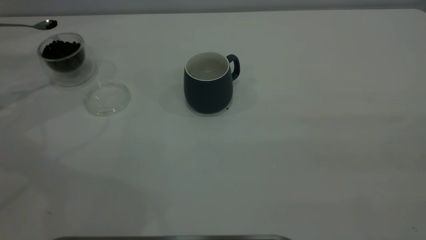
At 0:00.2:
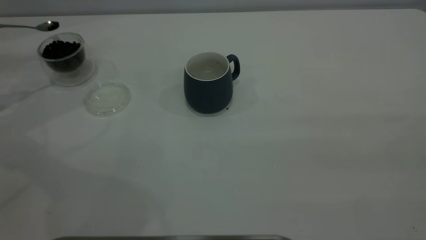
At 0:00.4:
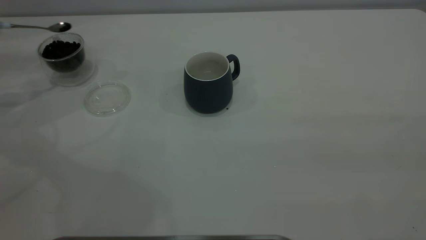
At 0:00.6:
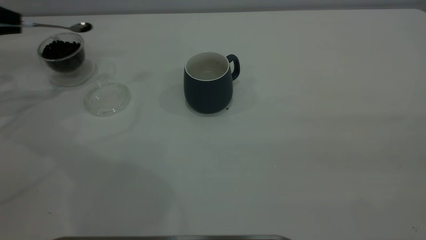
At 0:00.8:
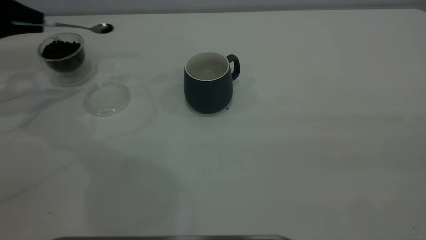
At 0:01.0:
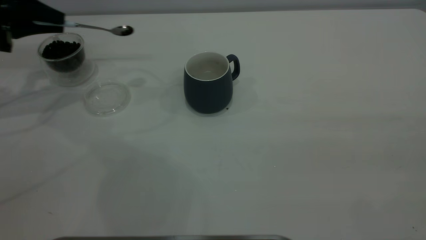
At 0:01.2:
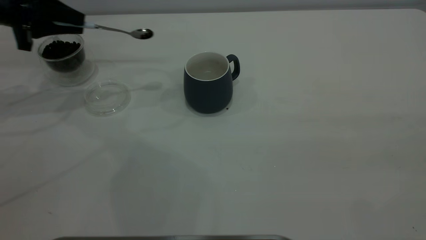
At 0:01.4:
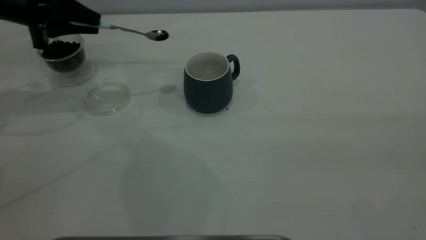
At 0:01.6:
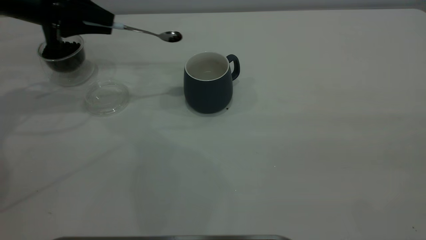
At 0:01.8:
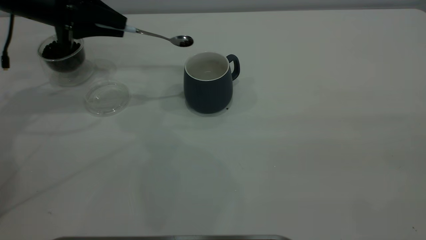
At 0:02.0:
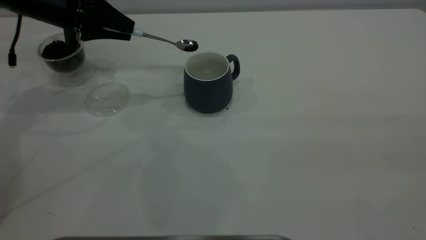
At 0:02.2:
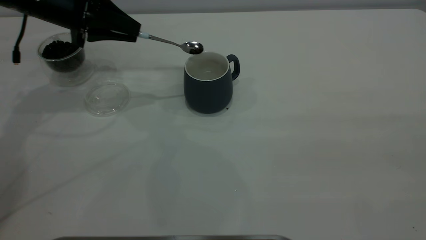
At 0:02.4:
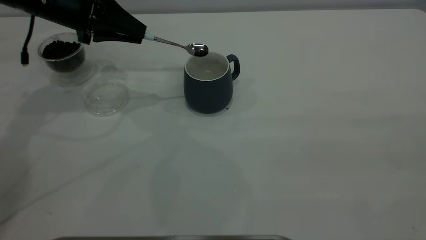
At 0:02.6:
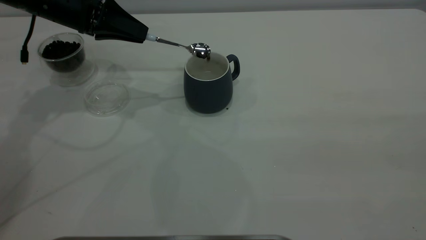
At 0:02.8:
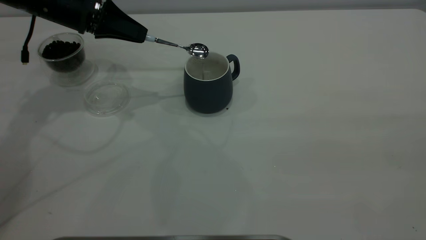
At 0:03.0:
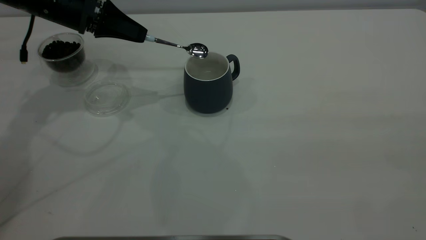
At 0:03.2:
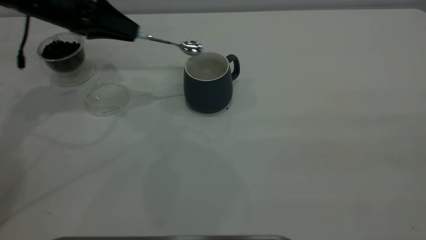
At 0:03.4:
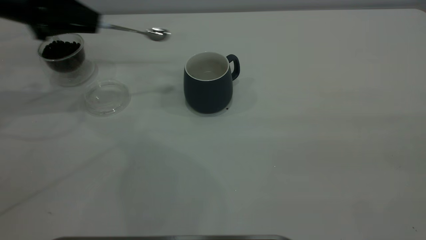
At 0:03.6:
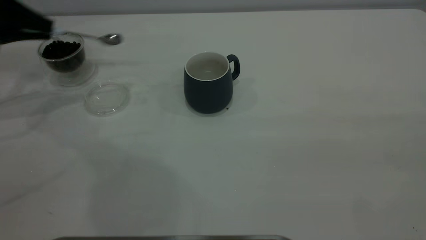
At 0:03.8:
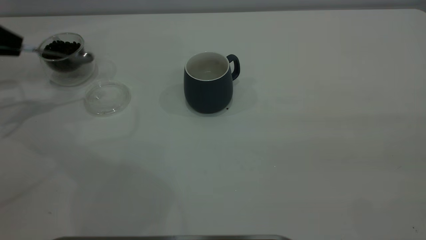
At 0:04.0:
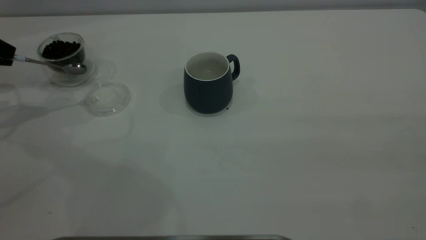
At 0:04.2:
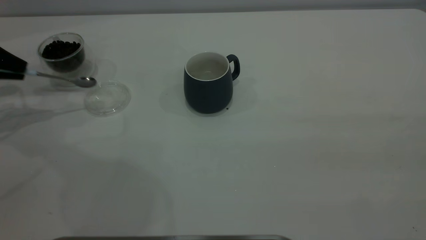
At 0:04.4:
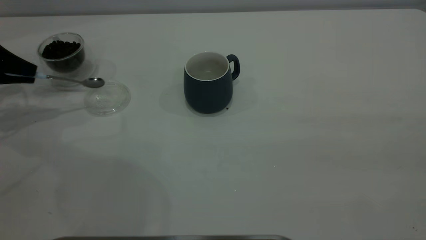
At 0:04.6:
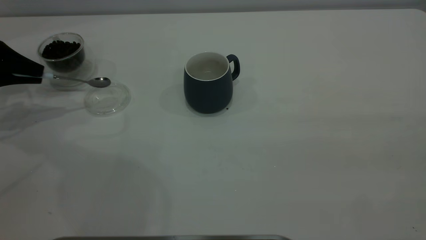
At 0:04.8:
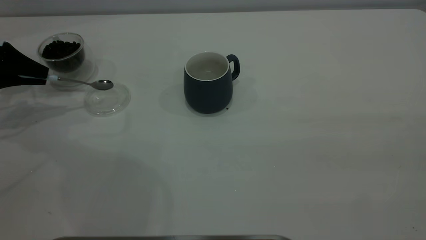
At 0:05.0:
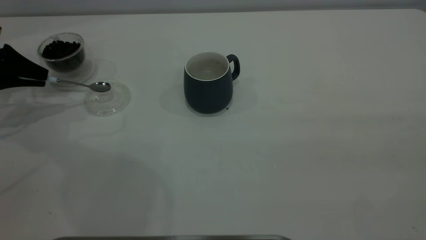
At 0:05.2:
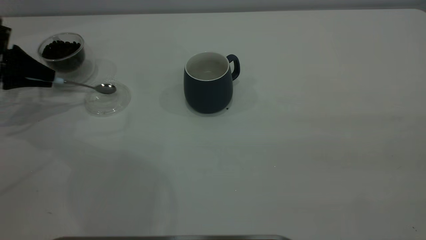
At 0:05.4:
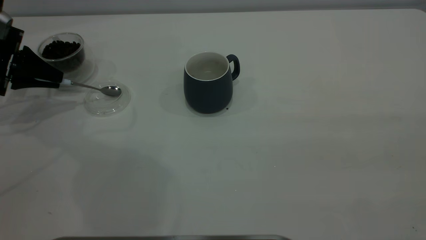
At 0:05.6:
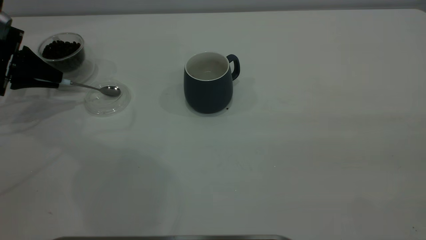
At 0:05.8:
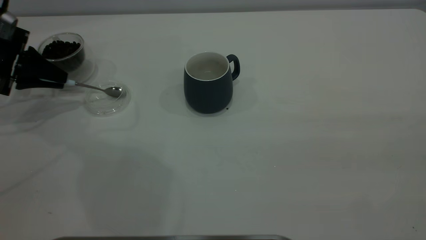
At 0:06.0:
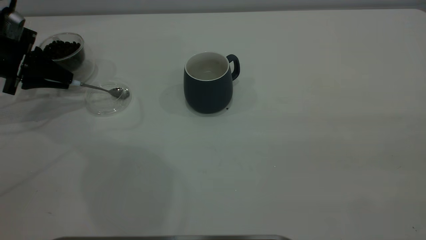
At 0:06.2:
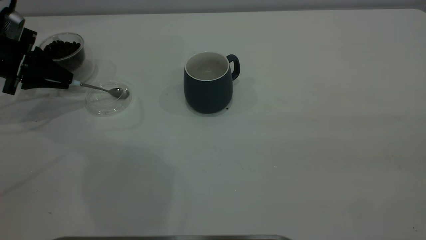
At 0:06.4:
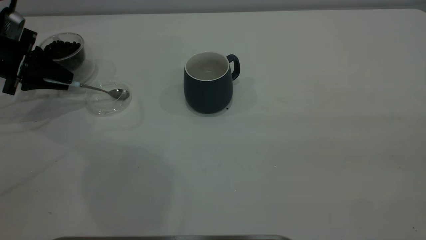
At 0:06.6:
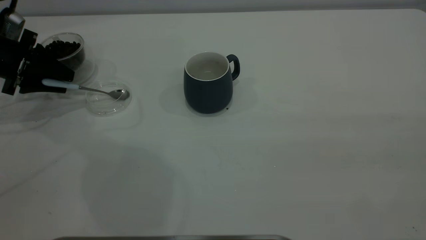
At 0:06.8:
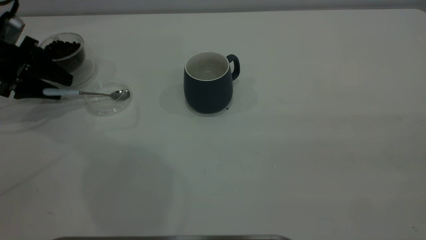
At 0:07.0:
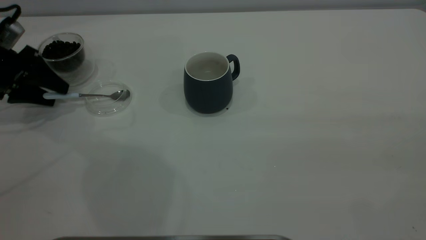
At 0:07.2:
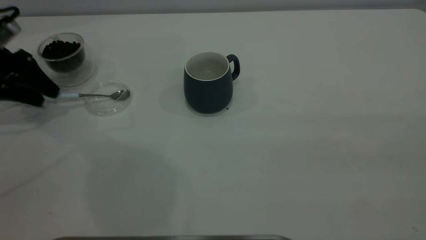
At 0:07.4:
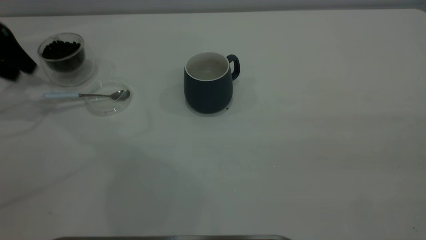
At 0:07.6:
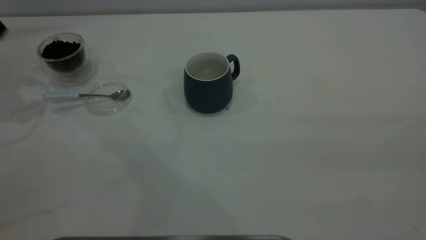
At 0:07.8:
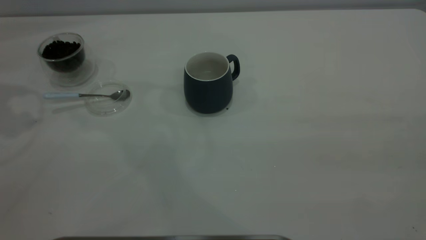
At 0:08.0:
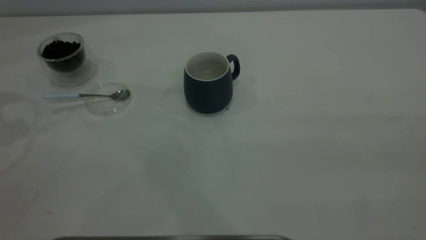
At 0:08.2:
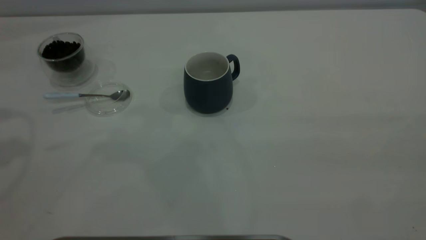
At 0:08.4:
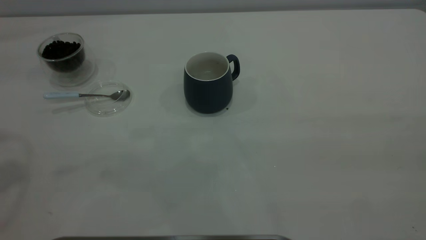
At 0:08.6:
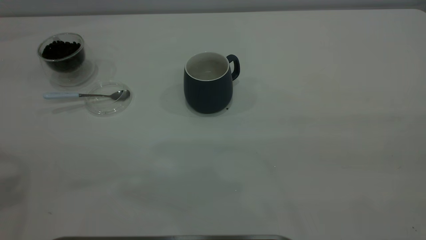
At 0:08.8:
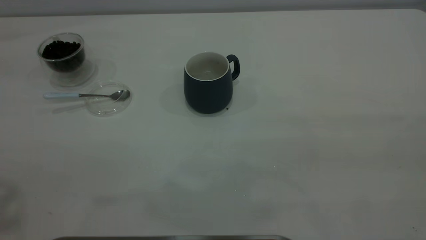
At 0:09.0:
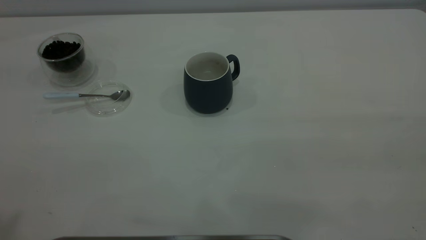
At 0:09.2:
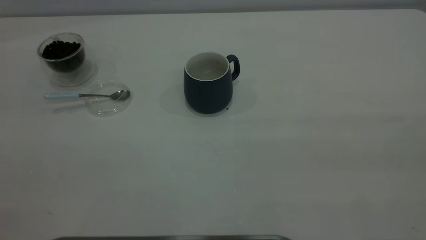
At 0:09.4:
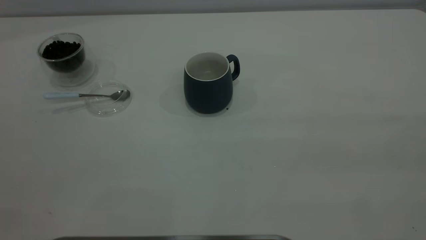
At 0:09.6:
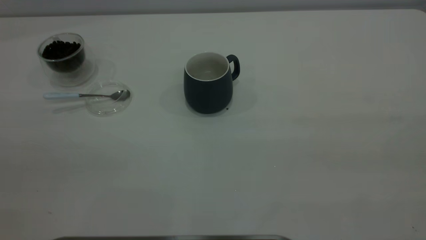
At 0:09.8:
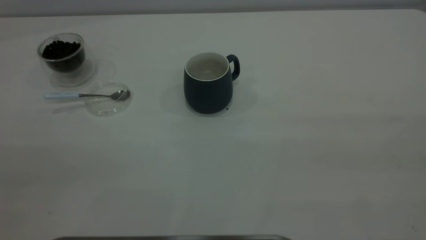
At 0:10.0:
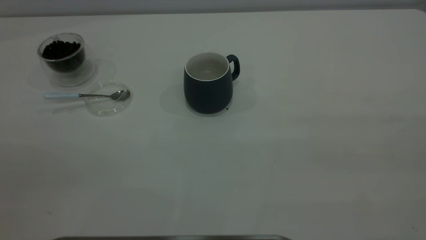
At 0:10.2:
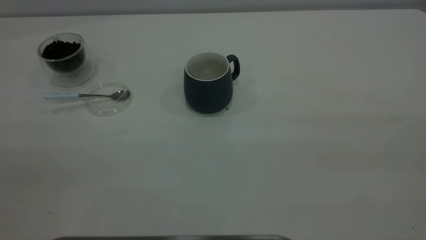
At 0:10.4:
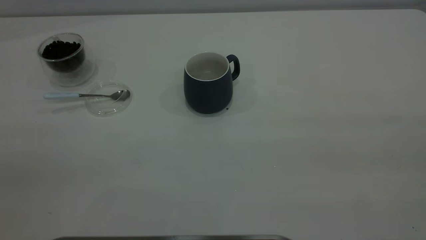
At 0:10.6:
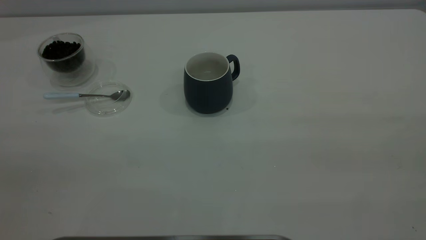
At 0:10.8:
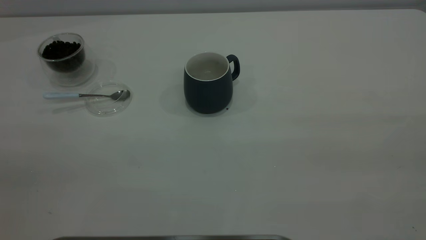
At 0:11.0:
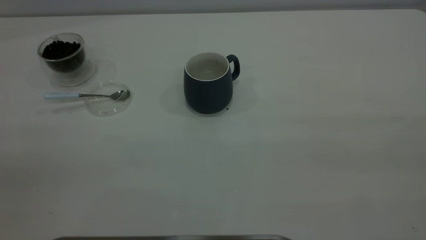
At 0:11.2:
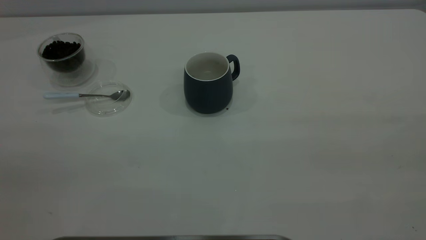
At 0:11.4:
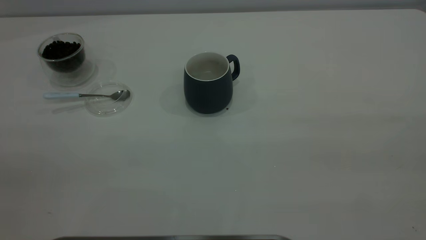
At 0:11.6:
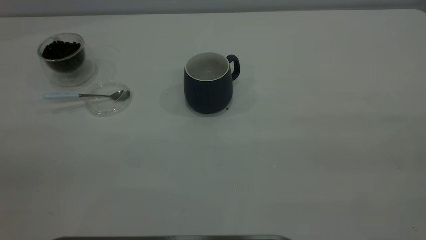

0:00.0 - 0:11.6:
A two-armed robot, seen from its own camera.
Task of the whole recording: the right gripper place the grey cup in the center of the table, the left gripper take the blue spoon from the cup lid and scoop out the coffee beans from the coffee cup and put them into the grey cup, the left gripper put the spoon back into the cup lid.
Step, 0:00.0 - 0:03.0: Scoop a spoonful of beans into the cup.
Step, 0:03.2 - 0:07.4: Place the spoon back in its original place.
0:00.0 - 0:01.4: The left gripper travels to the right by roughly 20 cm.
0:01.4 - 0:02.8: The left gripper moves to the right, about 5 cm.
0:02.8 - 0:04.4: The left gripper shifts some 20 cm to the left.
0:04.4 - 0:05.8: The grippers move only a little.
0:05.8 - 0:07.2: The left gripper opens.
0:07.2 - 0:08.8: The left gripper is displaced upward and backward by some 40 cm.
